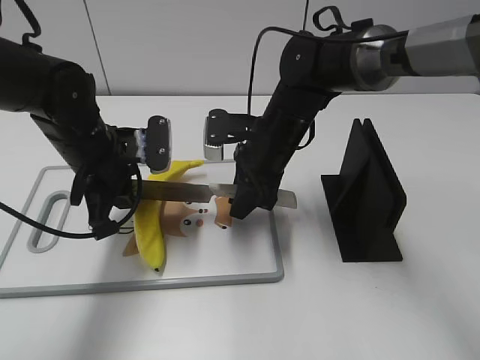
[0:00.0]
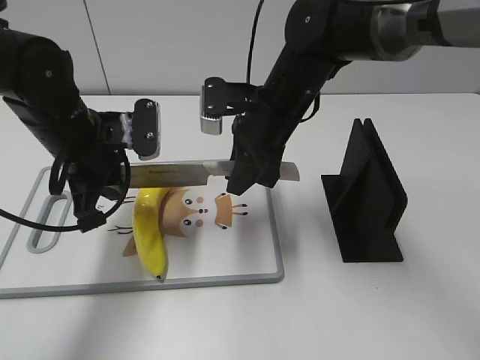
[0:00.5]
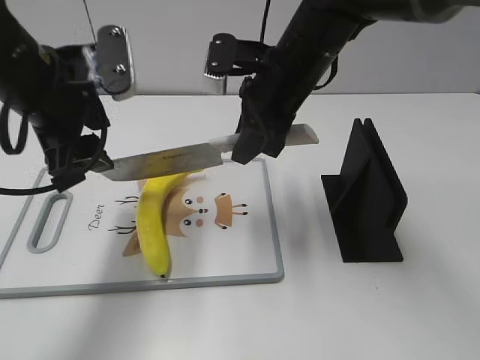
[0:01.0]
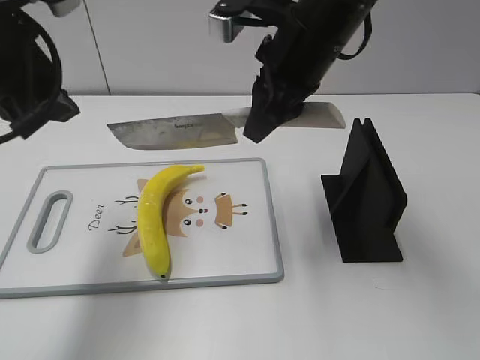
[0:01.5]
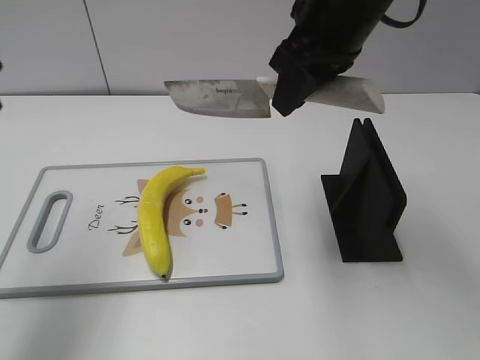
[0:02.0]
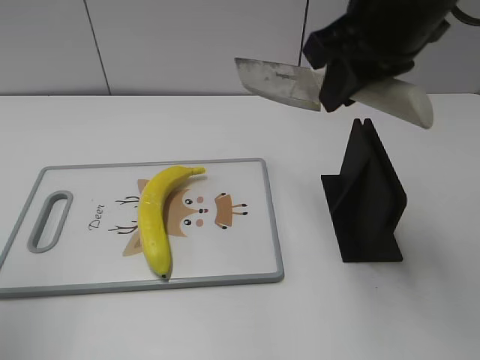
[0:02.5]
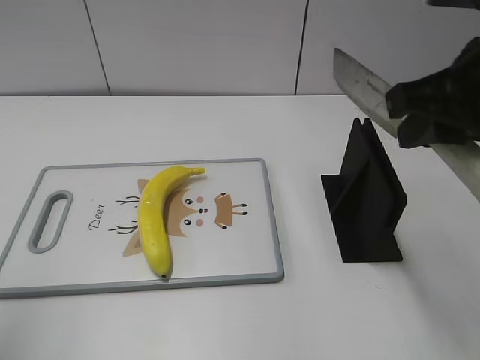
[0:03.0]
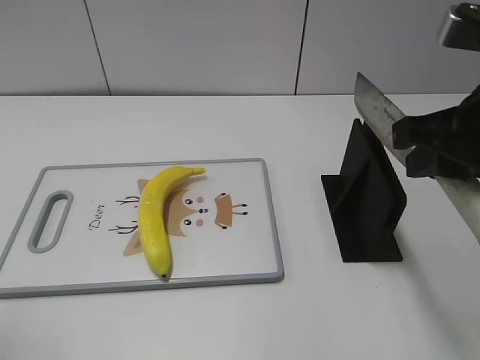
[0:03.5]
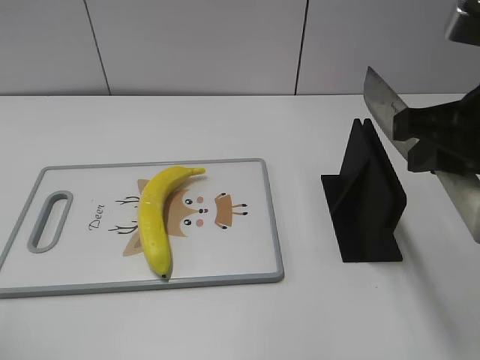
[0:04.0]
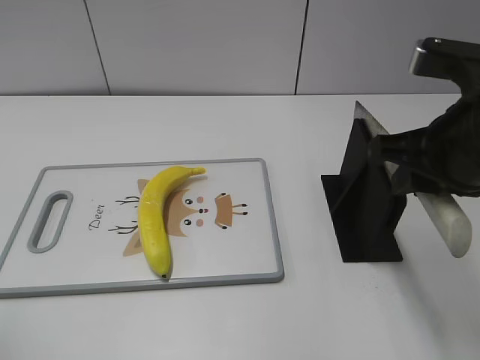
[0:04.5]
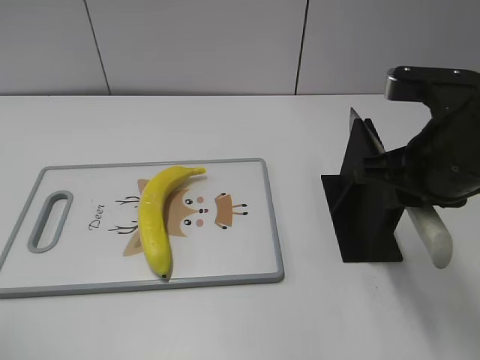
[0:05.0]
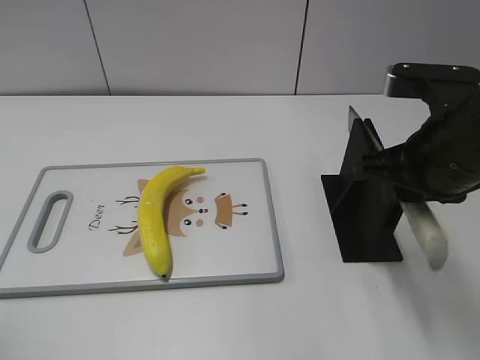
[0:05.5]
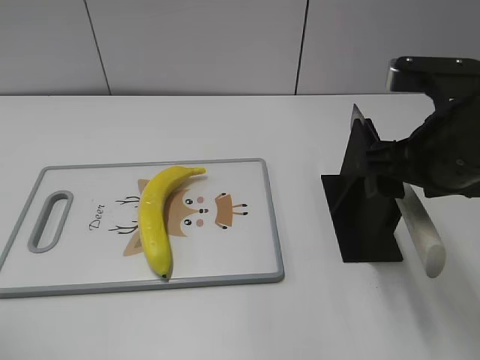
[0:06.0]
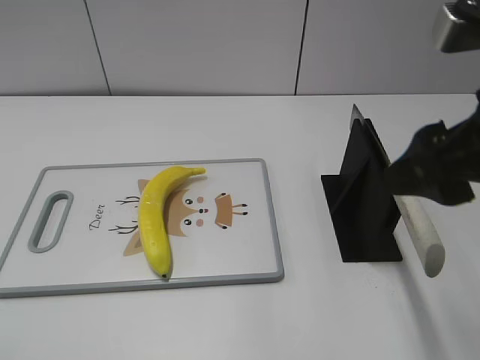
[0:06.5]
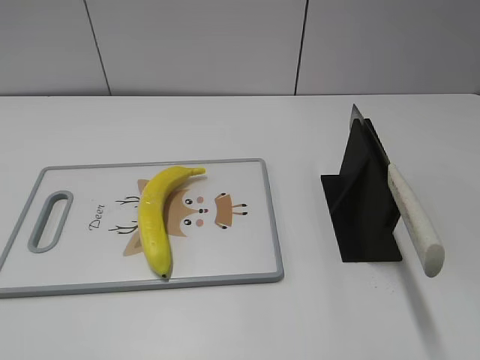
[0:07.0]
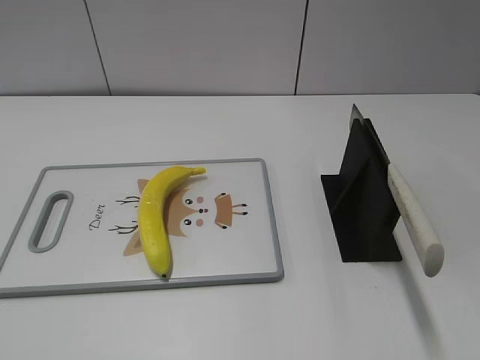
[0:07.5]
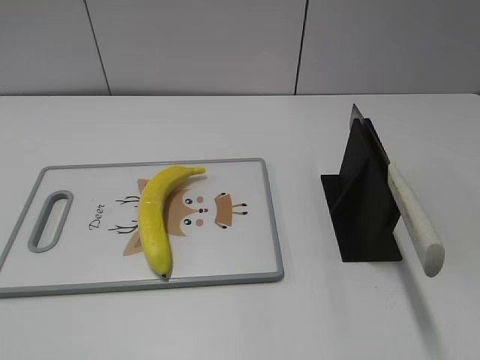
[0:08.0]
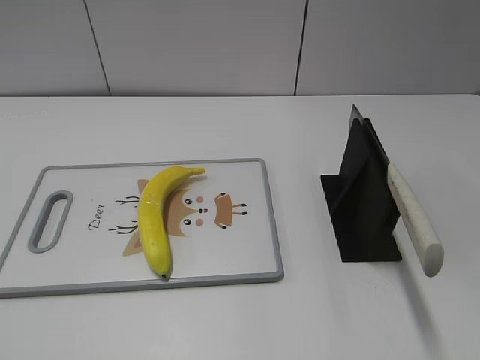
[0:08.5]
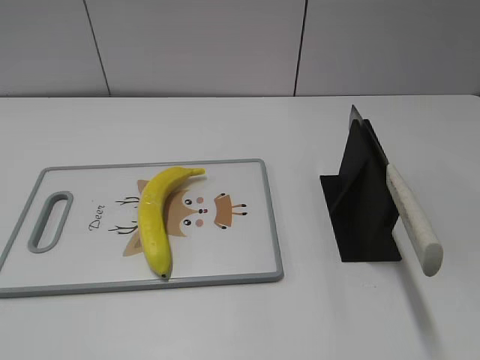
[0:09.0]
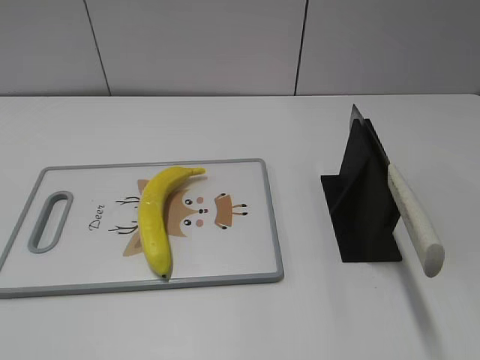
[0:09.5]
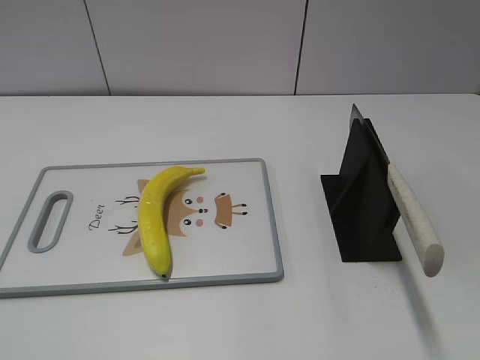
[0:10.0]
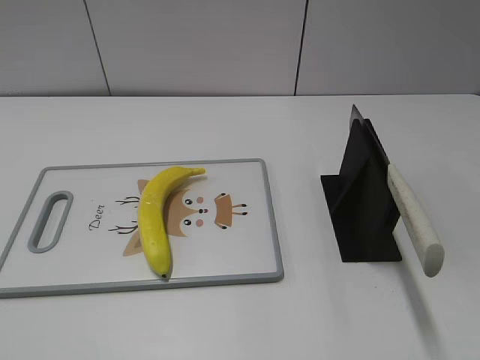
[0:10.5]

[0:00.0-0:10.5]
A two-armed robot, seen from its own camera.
Task of the whole recording: cut plastic banana.
Step, 0:00.5 to 0:01.5: Cut the banana with your right hand.
Step, 0:02.0 to 0:03.0: Lift the knife with your right hand.
Step, 0:04.0 to 0:09.0: Place the knife on the storage rack with your right hand.
0:00.0 to 0:02.0: The right gripper goes some 20 cm upward. The left gripper goes approximately 25 cm upward, to the left and backward, and opens up.
0:02.0 to 0:04.0: The right gripper heads backward and to the right, covering roughly 15 cm; the left gripper goes approximately 15 cm backward and to the left.
0:04.0 to 0:06.5: The right gripper opens its fingers.
0:06.5 to 0:08.5: The right gripper heads backward and to the right, covering approximately 20 cm.

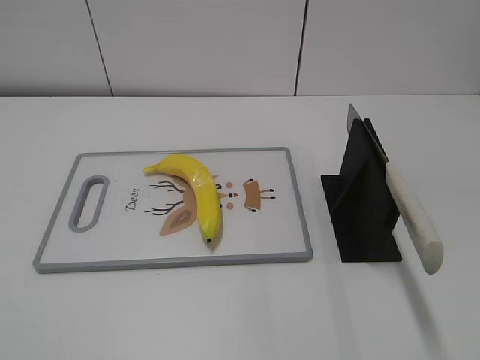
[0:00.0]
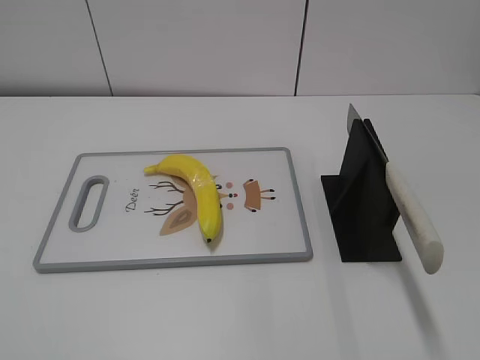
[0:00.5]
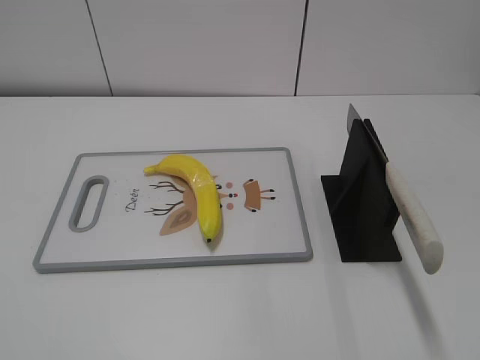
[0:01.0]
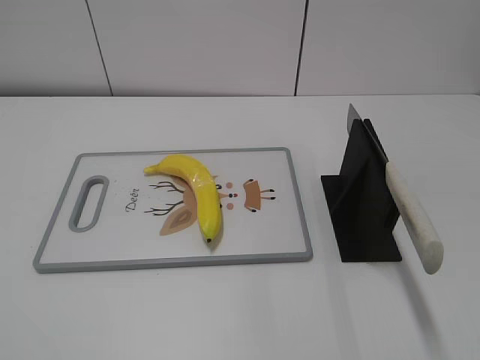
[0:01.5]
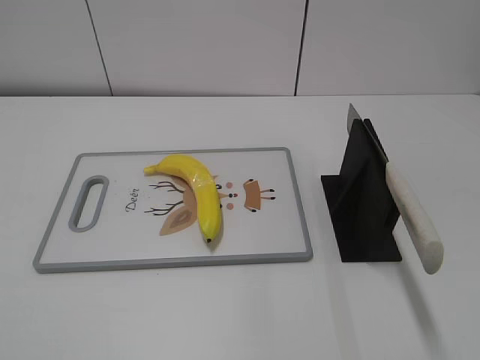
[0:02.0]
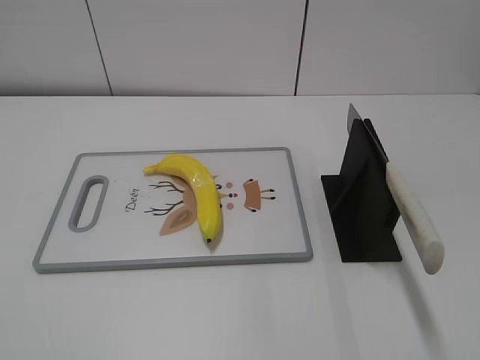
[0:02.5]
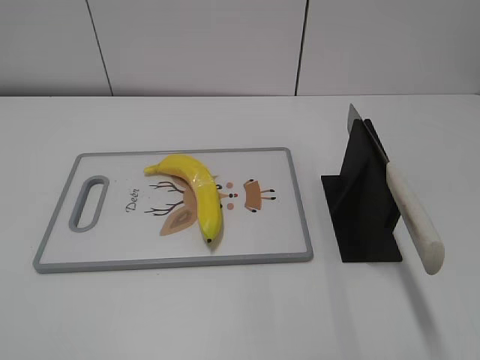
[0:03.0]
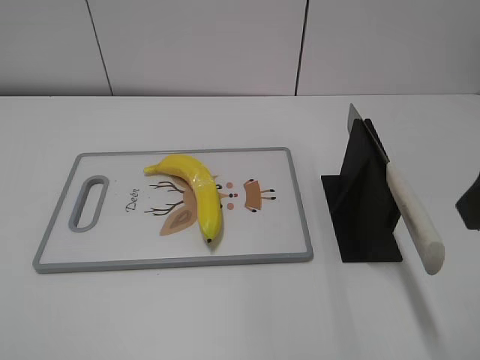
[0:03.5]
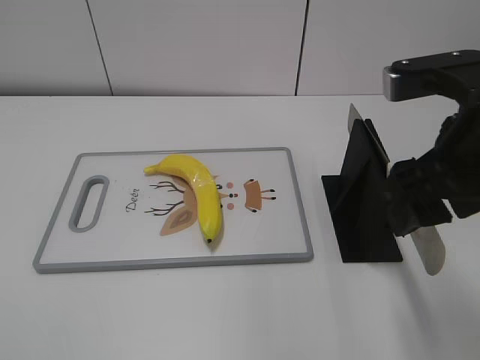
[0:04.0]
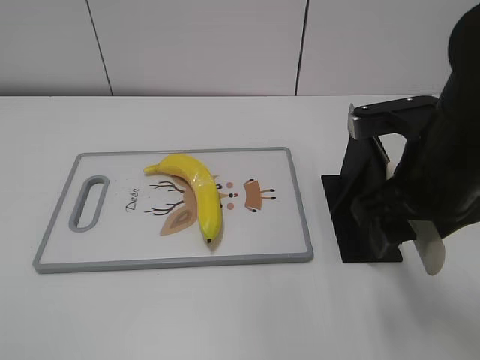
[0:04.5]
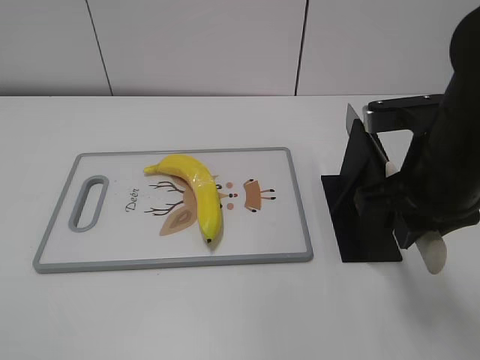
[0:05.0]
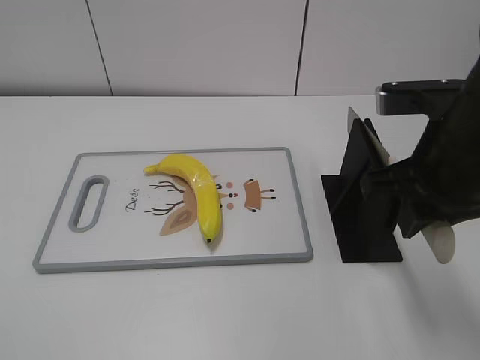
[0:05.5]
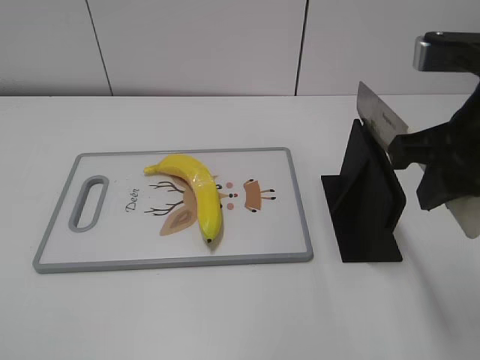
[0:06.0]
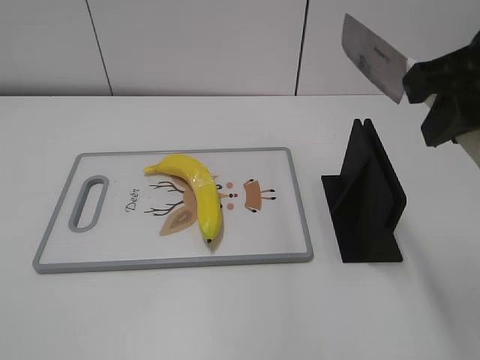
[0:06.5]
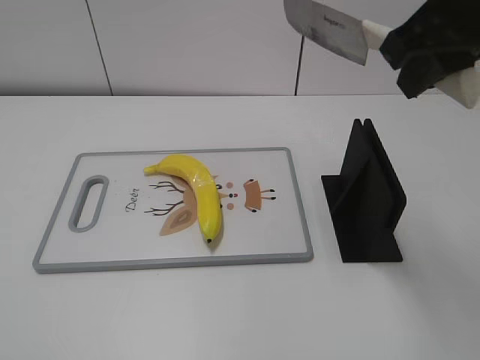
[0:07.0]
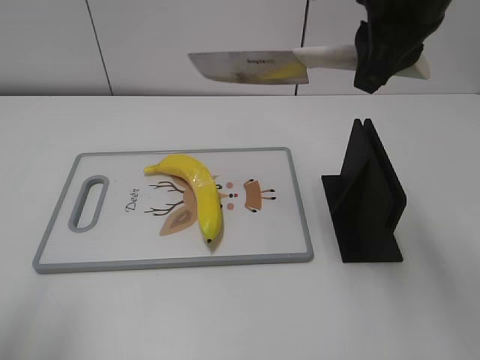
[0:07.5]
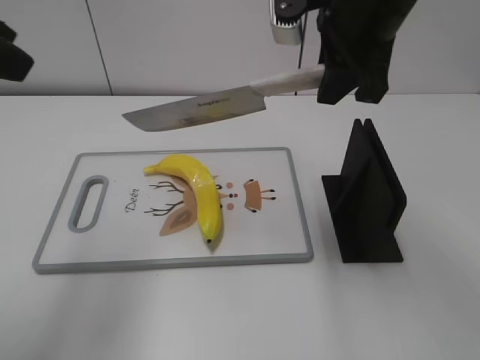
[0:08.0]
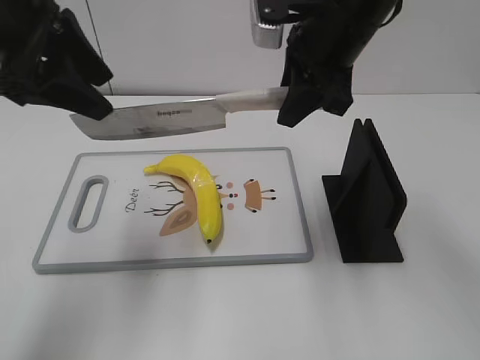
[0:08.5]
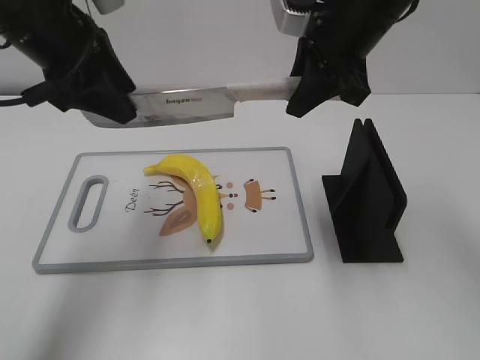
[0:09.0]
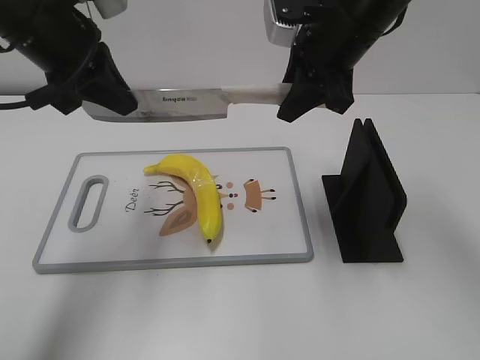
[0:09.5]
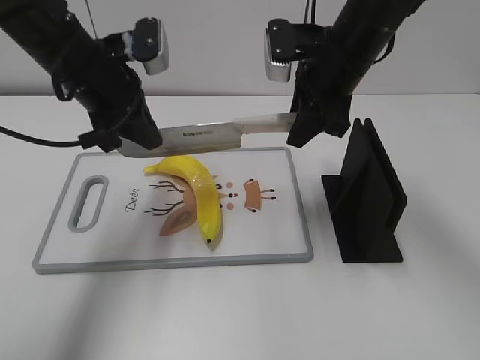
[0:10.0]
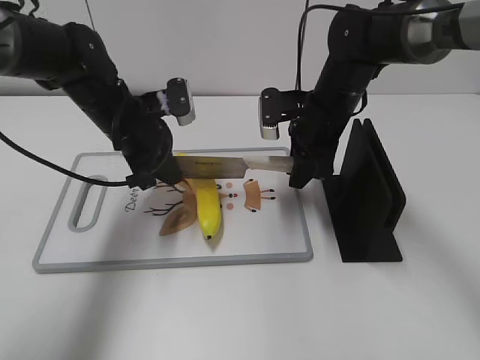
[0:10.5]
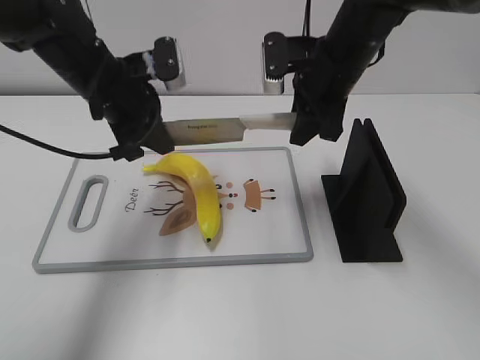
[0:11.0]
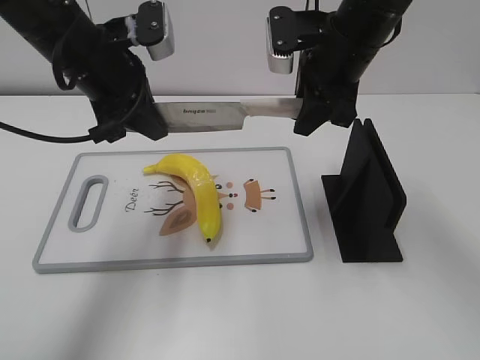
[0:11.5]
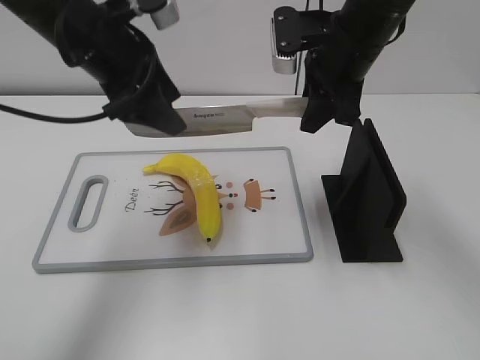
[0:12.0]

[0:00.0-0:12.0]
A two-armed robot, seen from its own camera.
Task of the whole recording: cut plastic banana.
Step, 0:00.0 to 0:06.0: Grab the knife handle with your right hand.
Step, 0:06.5 to 0:11.5: Lift the knife with your right hand.
0:02.0 to 0:04.0: The right gripper goes approximately 25 cm forward and to the left.
0:04.0 to 0:06.0: The right gripper closes.
0:06.0 to 0:08.0: The left gripper moves forward, approximately 25 cm. Meanwhile the right gripper shifts approximately 15 cm forward and to the left.
0:08.0 to 0:10.0: The right gripper moves downward and forward, about 10 cm; the left gripper is displaced downward, forward and to the right by some 20 cm, and closes up.
0:10.0 to 0:12.0: The left gripper is displaced upward by roughly 5 cm, and opens up; the right gripper travels downward and back again, some 10 cm each way.

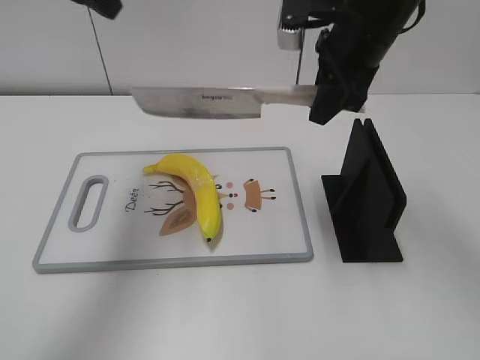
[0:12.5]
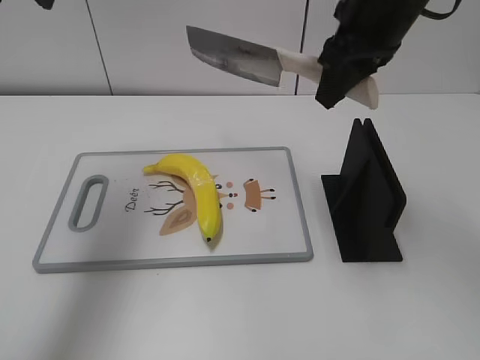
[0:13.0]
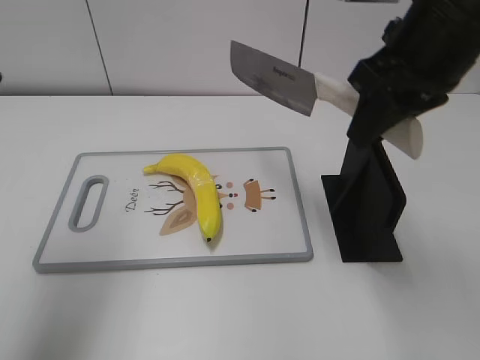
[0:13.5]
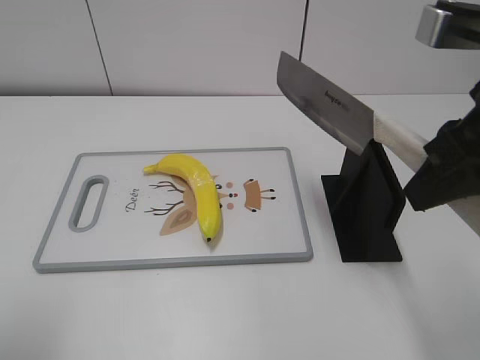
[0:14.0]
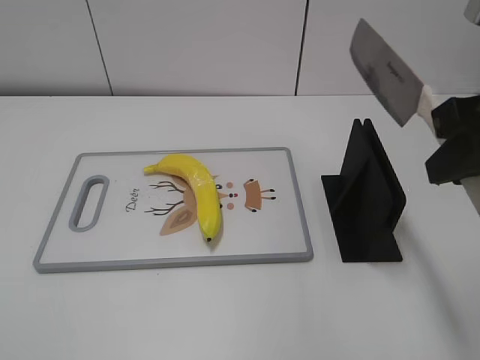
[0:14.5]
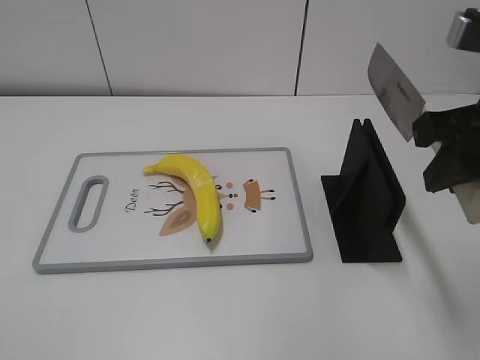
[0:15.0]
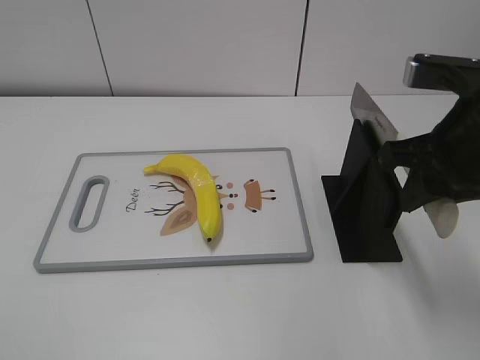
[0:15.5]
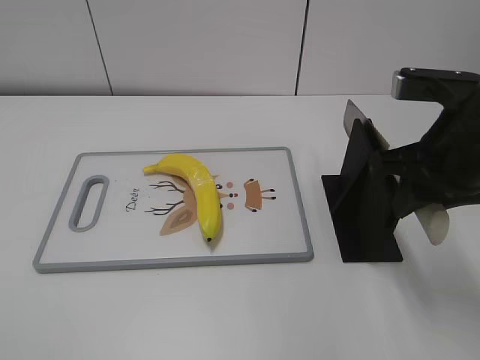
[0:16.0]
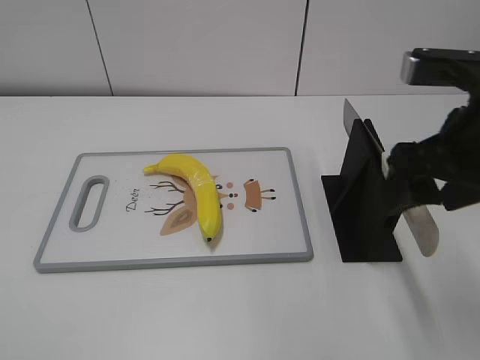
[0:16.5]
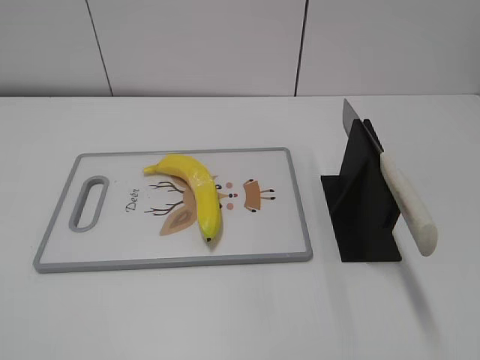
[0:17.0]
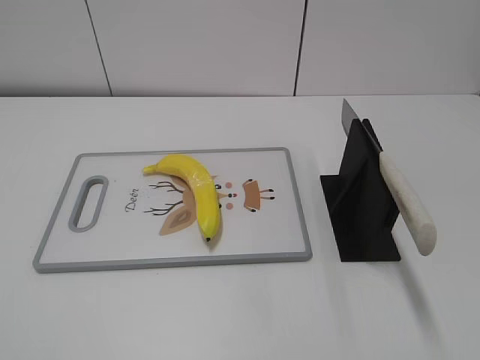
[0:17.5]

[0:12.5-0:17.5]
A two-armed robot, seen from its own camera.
Task of the whole recording: cut plastic banana.
Step, 0:13.5 to 0:14.0: Lift the knife with your right hand.
0:12.5 to 0:15.0: The left gripper is displaced backward by about 40 cm. Meanwhile the right gripper moves backward and to the right, about 20 cm.
0:15.0 to 0:17.5: The right gripper is displaced backward and to the right by approximately 25 cm, and opens.
